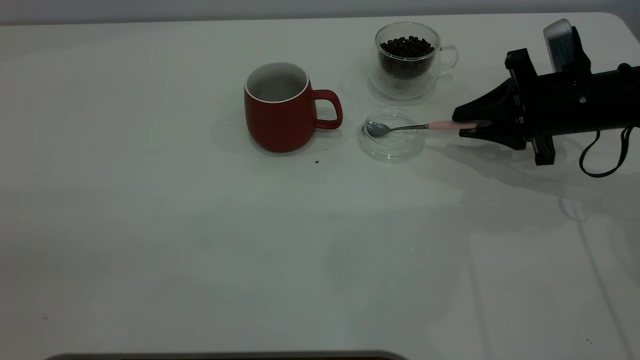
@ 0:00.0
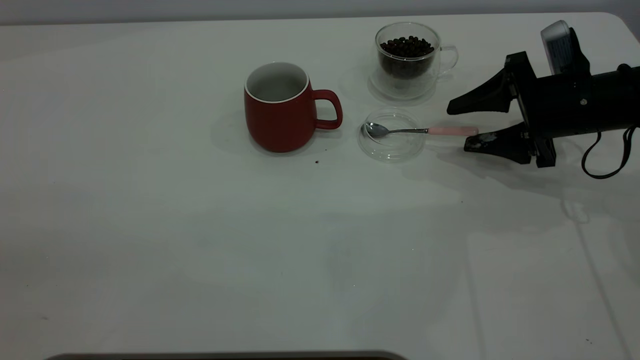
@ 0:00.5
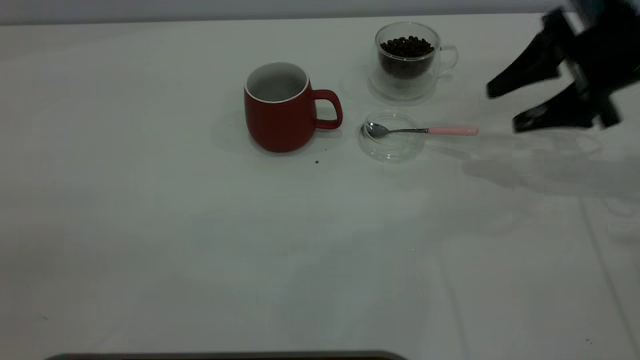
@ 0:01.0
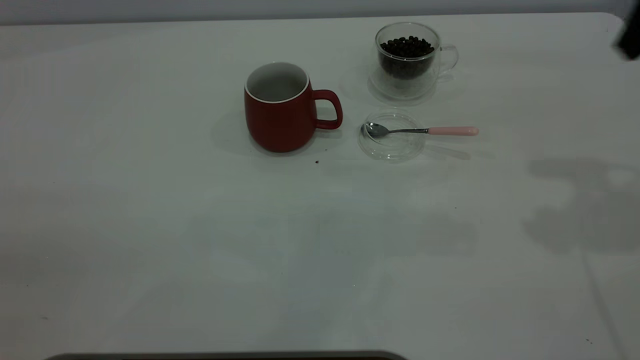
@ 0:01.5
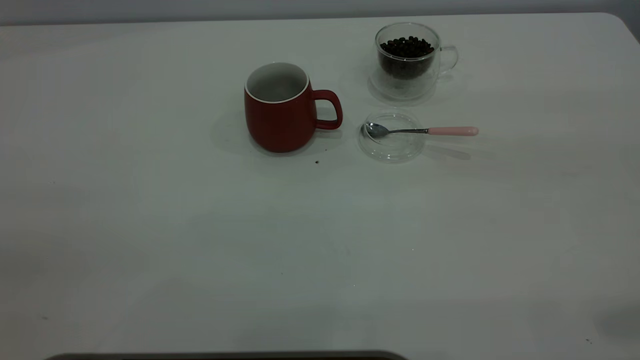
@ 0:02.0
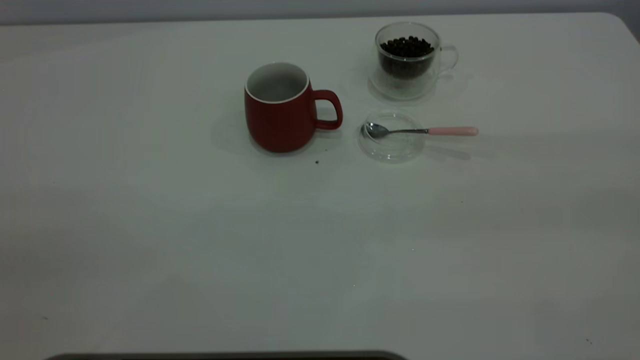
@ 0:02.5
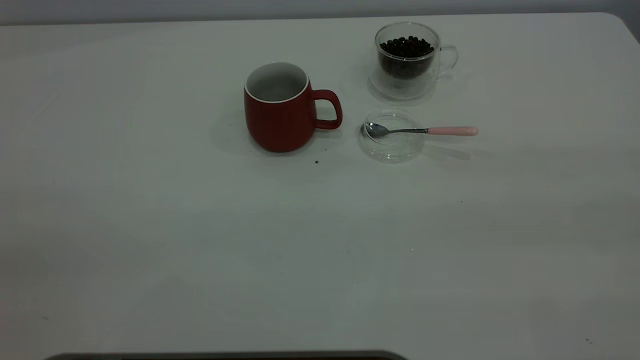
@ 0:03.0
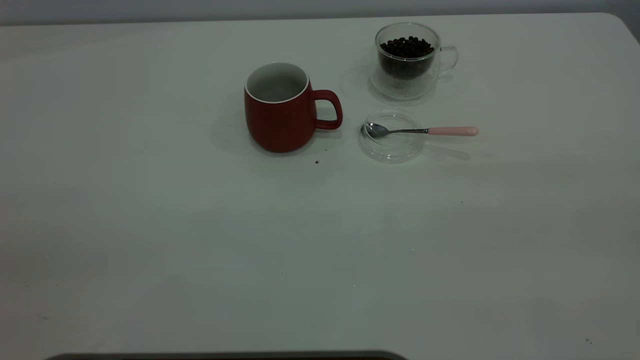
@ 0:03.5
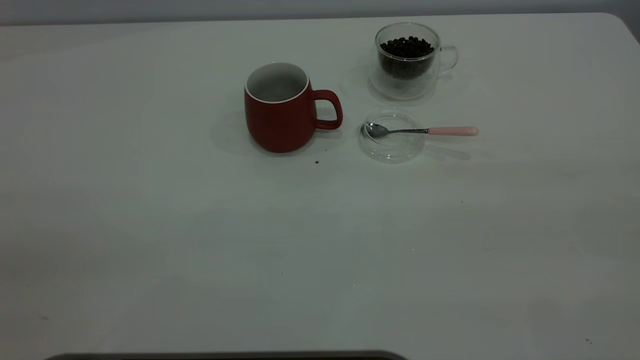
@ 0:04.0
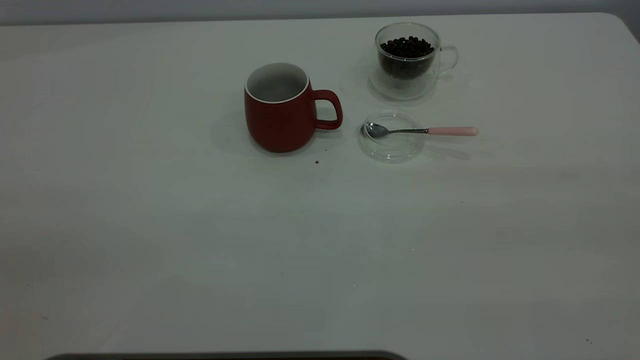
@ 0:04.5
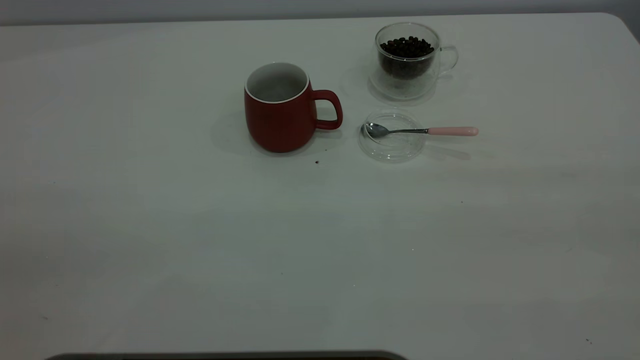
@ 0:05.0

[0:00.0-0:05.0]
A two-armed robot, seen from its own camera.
Task of the whole recording: the left gripper place the red cup in the center of the table, the right gripper take the pink spoon from the cup lid and scoop out the coffee beans from the coffee cup and put them into the red cup, the right gripper put the spoon back into the cup lid.
0:00.0 to 0:02.5: The right gripper is displaced backward and upward by approximately 40 cm, and opens its fingers.
